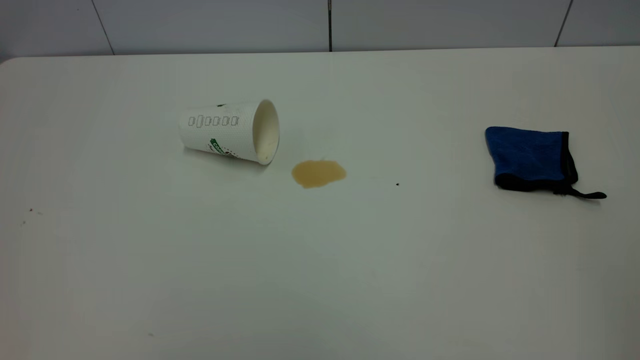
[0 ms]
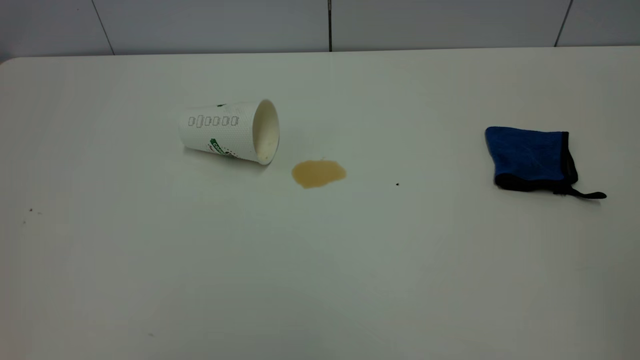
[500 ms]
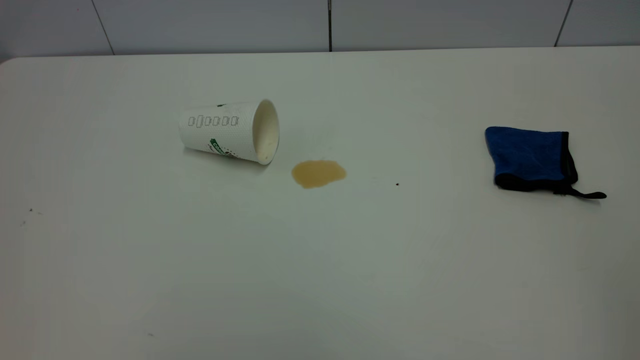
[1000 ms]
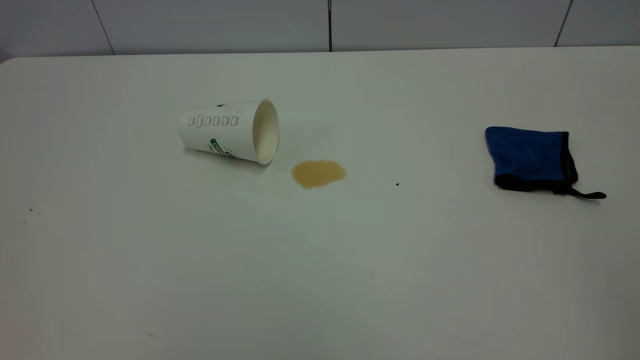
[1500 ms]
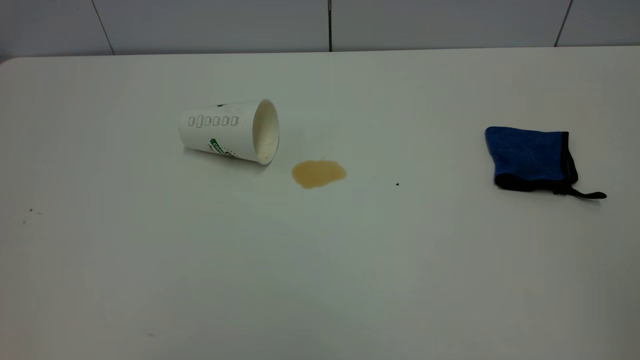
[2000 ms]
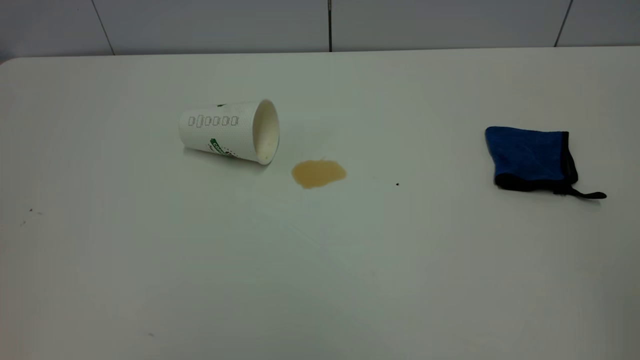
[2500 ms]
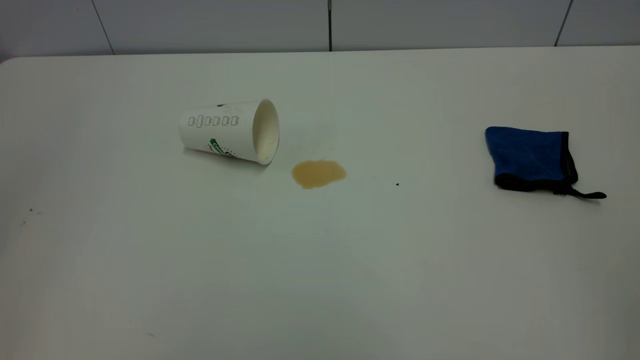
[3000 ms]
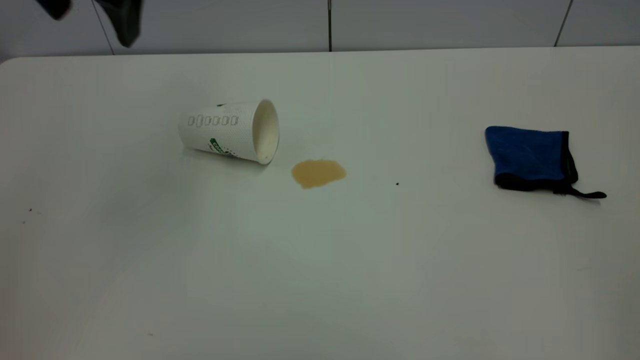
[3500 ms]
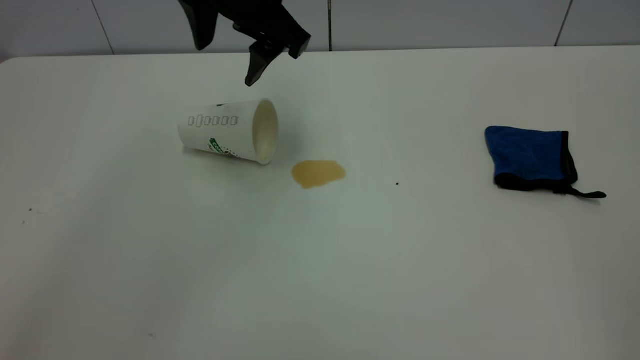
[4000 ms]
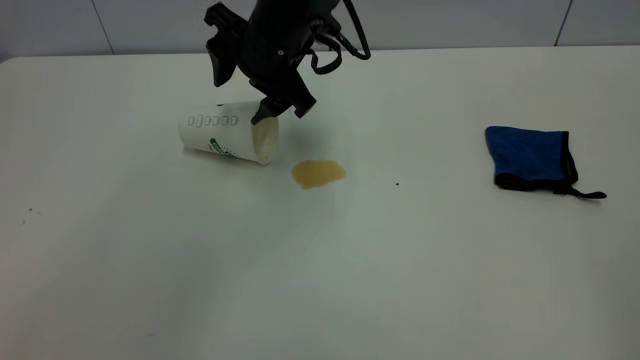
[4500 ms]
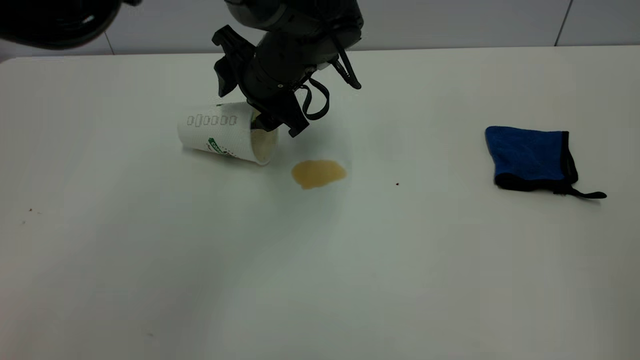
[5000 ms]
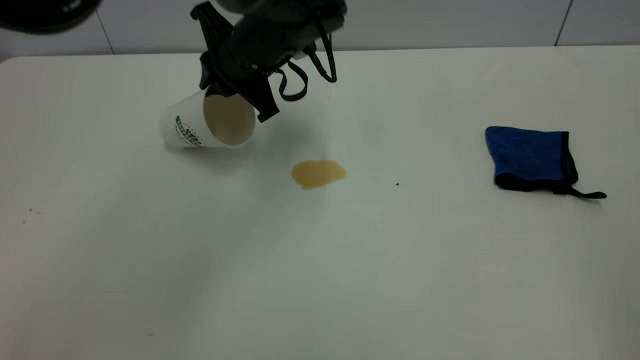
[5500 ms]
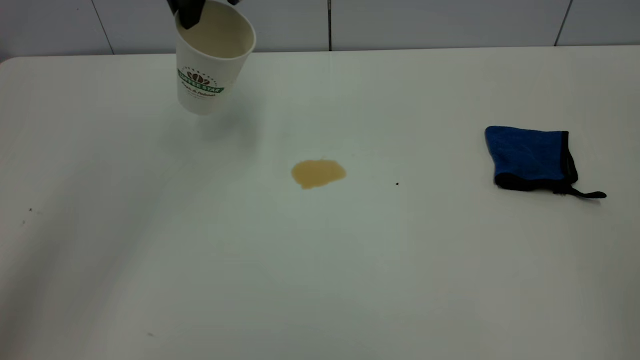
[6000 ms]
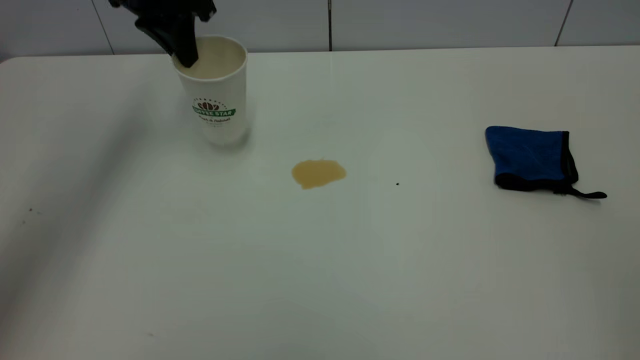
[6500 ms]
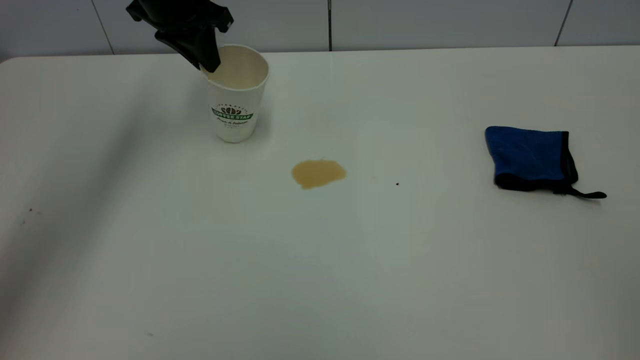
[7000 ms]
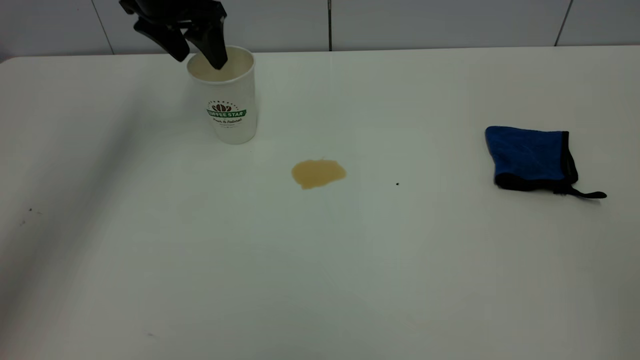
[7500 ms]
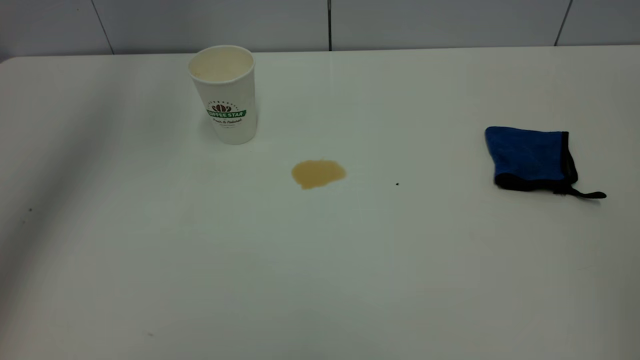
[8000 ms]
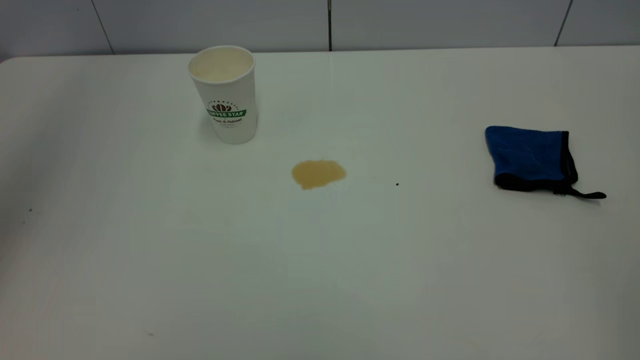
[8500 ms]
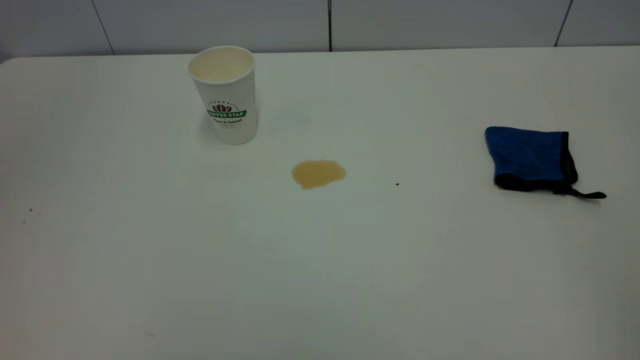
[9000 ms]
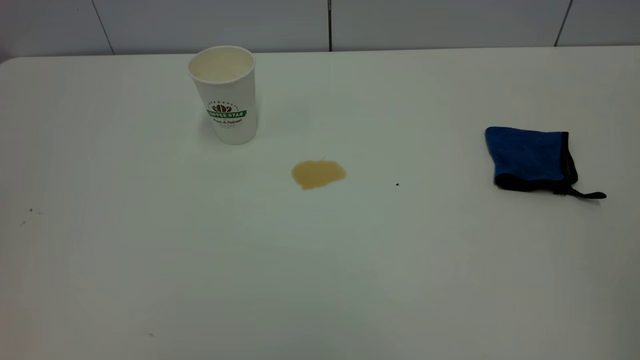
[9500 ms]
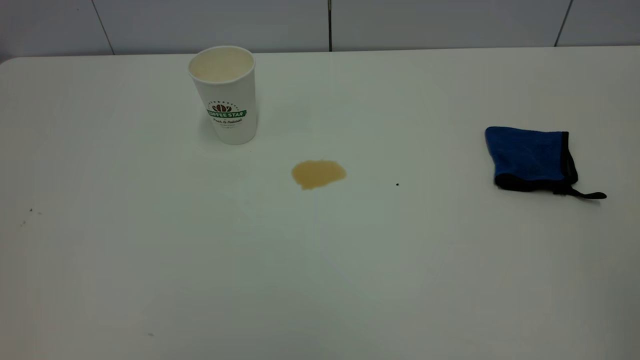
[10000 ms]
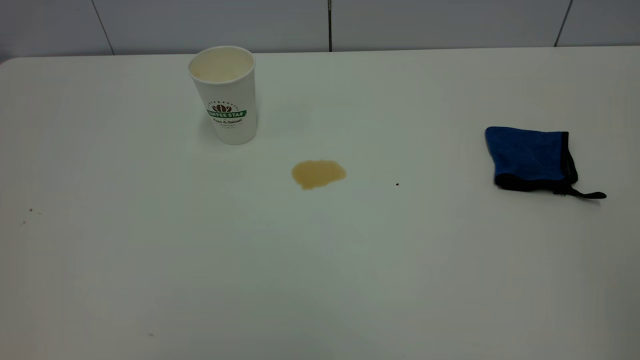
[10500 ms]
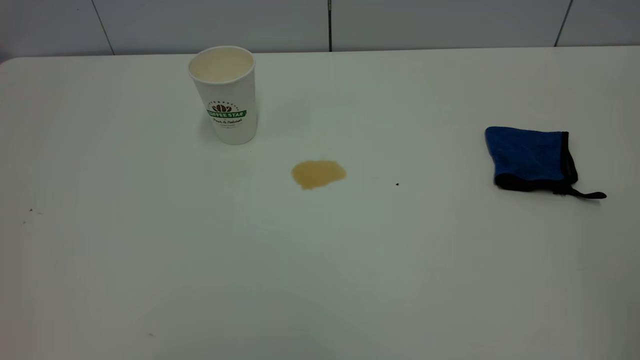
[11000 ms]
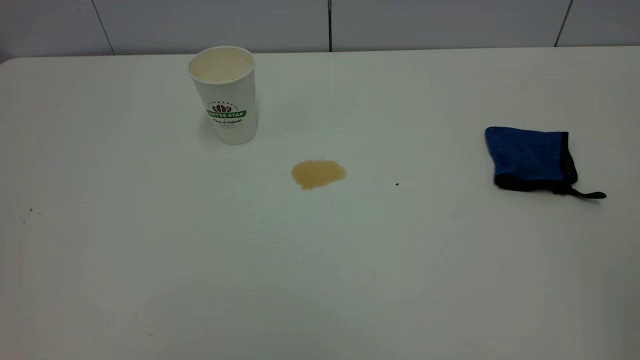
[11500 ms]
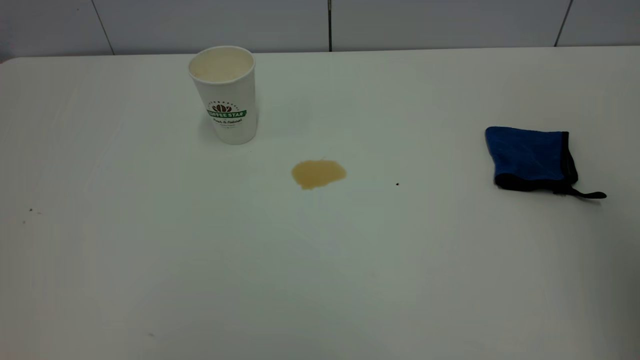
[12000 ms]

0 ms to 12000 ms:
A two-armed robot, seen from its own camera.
Task of the whole recording: the left gripper pick up the fallen cup and place it upright, the right gripper grasp the blue rag and wipe the tea stain on the table, the right gripper put the blue rag back in its original position.
Step, 0 ms to 7500 ms: Stand the paper cup upright.
0 ms to 2000 ms: The two grippers keep their place.
2000 ms to 4000 ms: The left gripper shifts approximately 50 cm forward and to the right, and opens its fingers.
4000 ms to 6000 ms: The left gripper shifts about 10 cm to the left and forward, moves some 10 cm downward and comes back, and closes up.
6000 ms to 8000 ms: The left gripper shifts approximately 15 cm upward and to the left, and opens up.
8000 ms to 10000 ms: The left gripper travels backward by about 50 cm, and closes up.

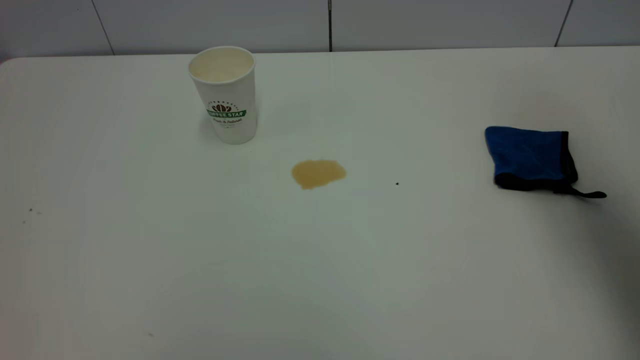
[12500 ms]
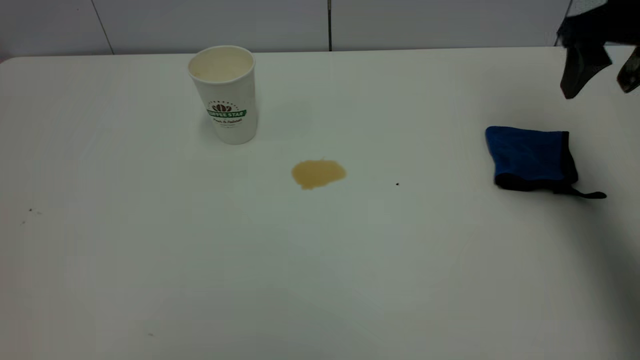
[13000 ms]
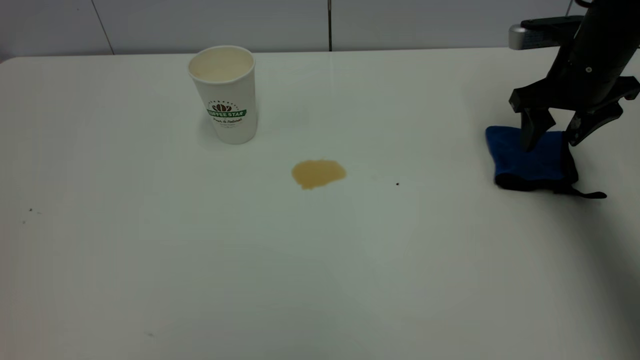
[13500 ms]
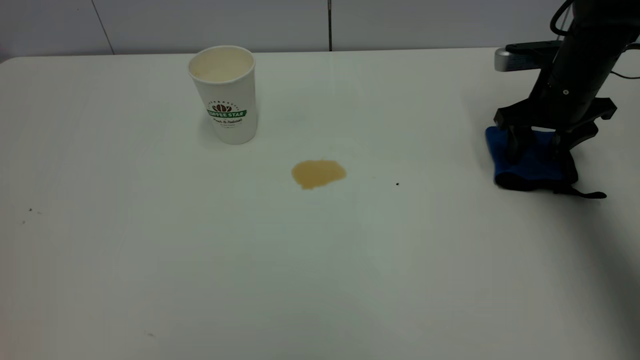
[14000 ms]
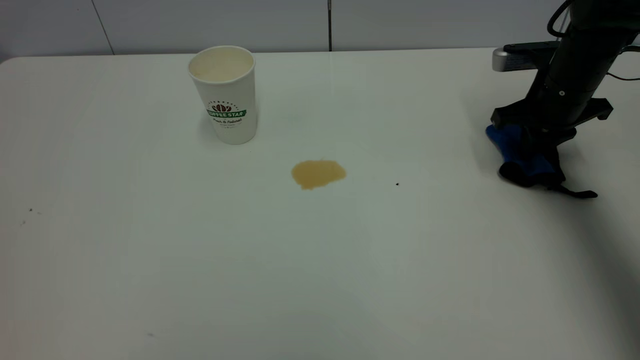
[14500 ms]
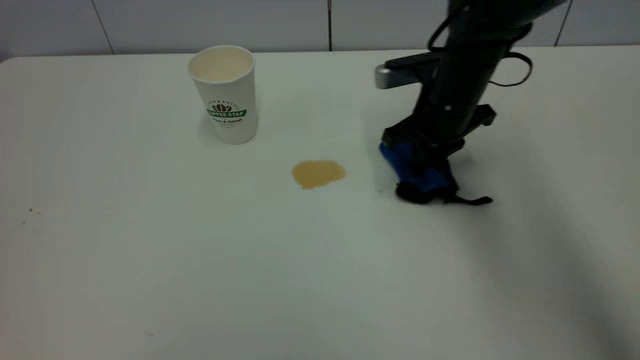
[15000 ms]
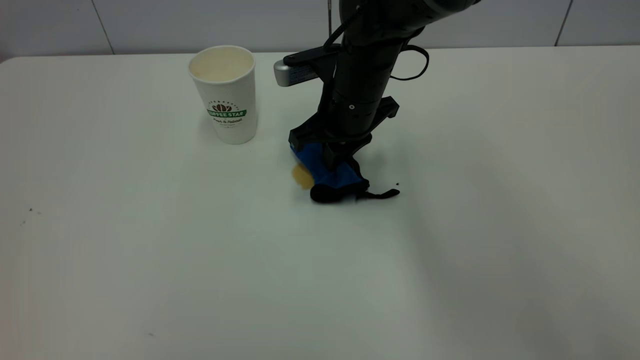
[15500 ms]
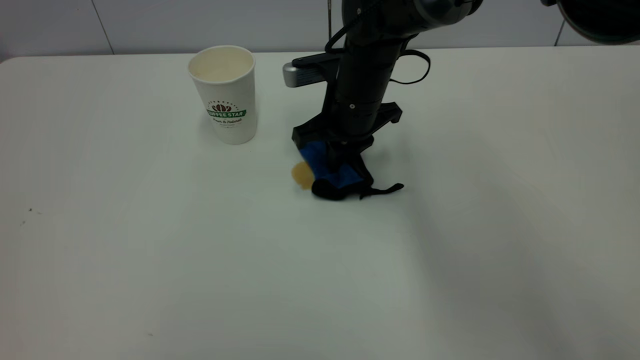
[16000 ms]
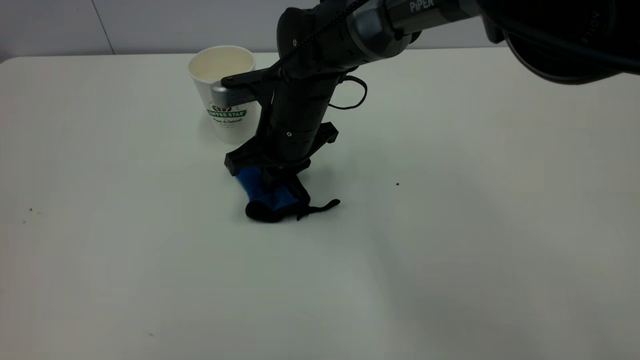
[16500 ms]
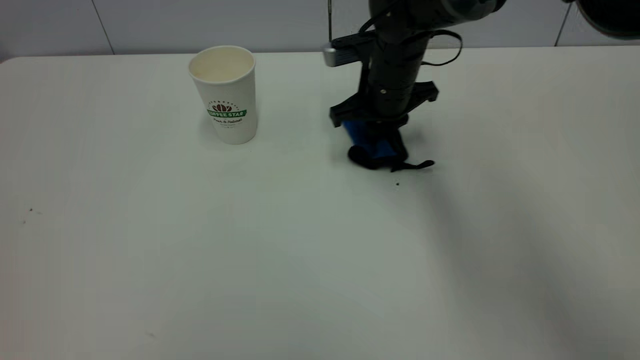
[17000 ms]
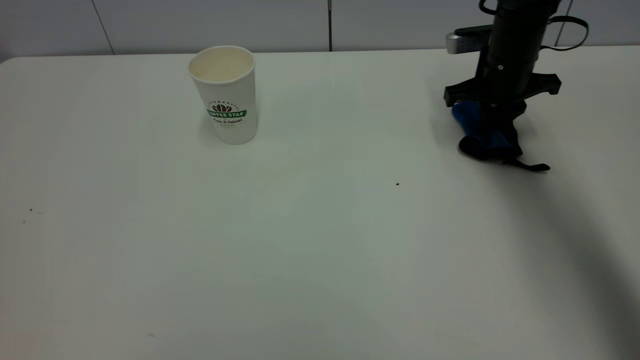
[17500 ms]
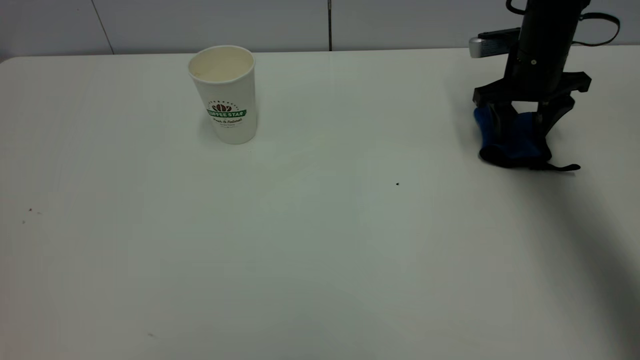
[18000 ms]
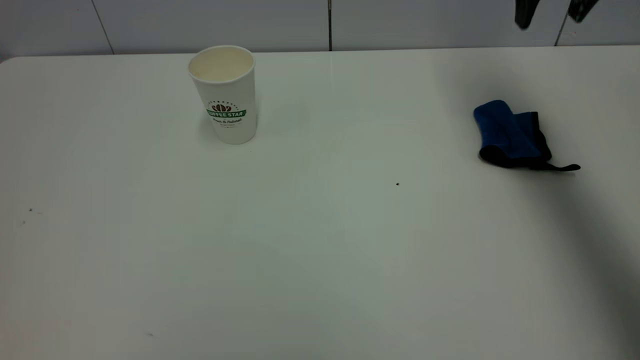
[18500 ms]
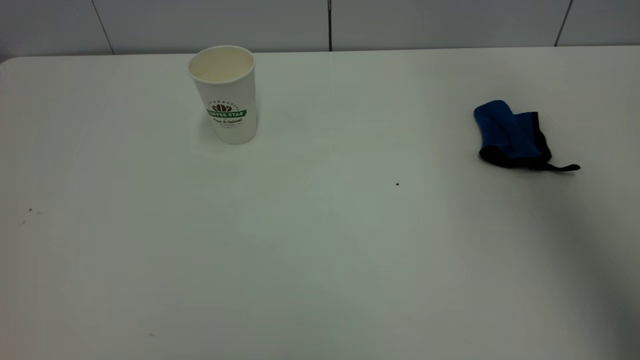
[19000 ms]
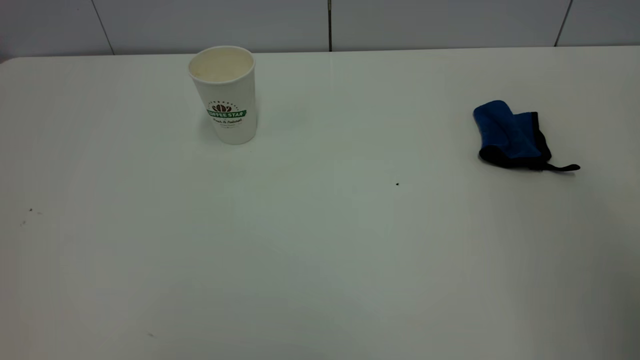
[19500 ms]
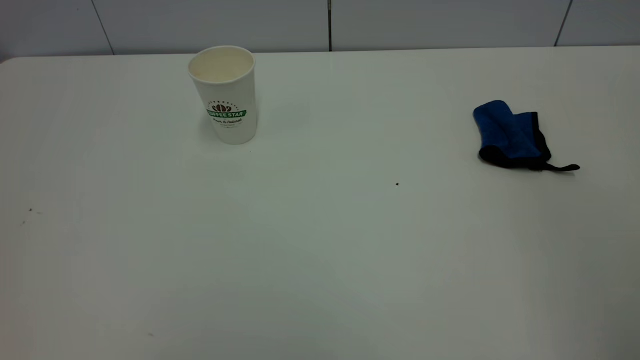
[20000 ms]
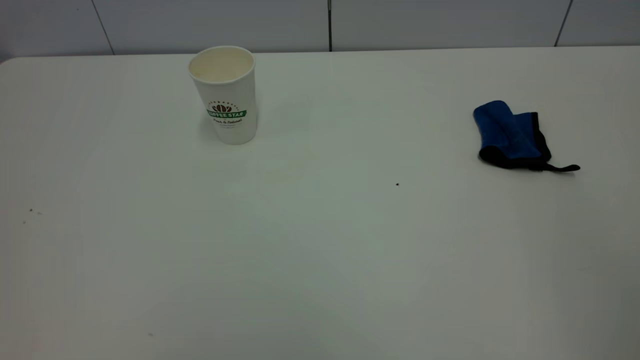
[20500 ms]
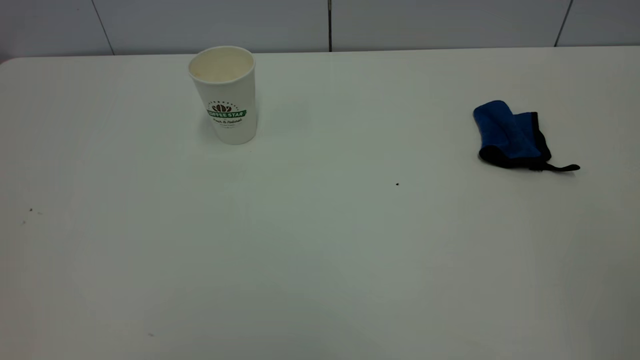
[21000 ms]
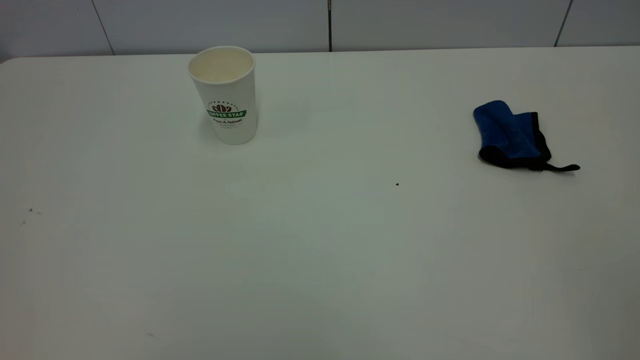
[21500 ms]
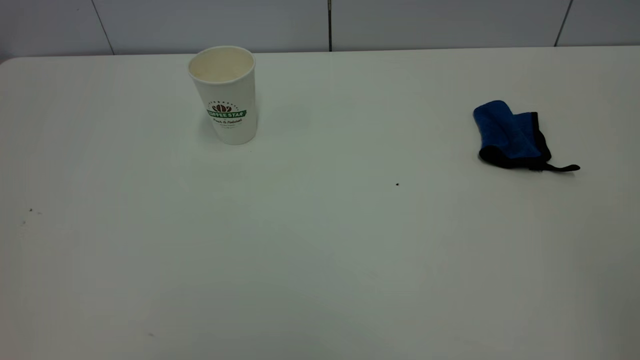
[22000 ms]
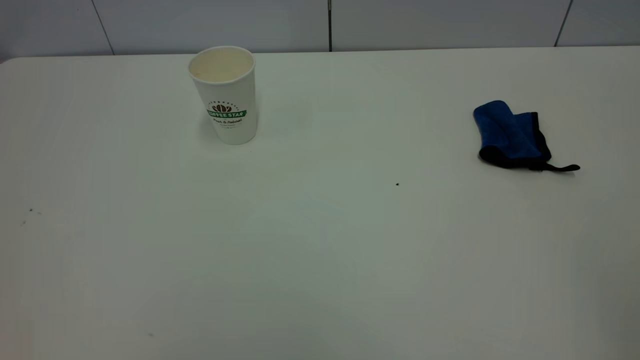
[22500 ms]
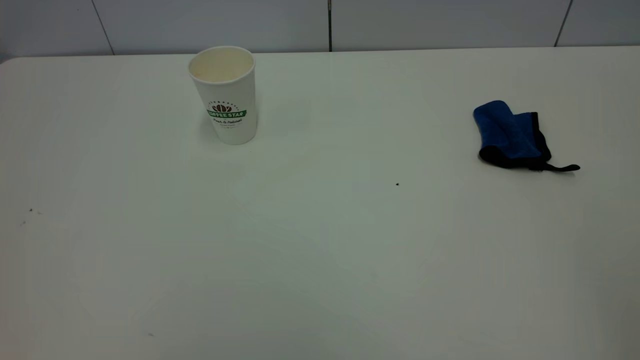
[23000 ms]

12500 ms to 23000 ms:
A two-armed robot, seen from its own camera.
Task of the whole recording: the left gripper pick up the fallen cup and place it upright, the right gripper grasp the blue rag and wipe the tea stain on the table, the right gripper put the blue rag back in its original position.
Step, 12500 ms to 18000 ms: Wipe the stains off the table with a rag.
12500 ms to 14500 ms: The right gripper moves downward and forward, some 30 cm, and closes its fingers.
14500 ms to 16500 ms: The right gripper moves to the left, about 30 cm.
16500 ms to 19000 ms: The right gripper heads upward and to the right, covering approximately 40 cm, and opens up.
19000 ms to 21000 ms: The right gripper goes roughly 35 cm backward.
